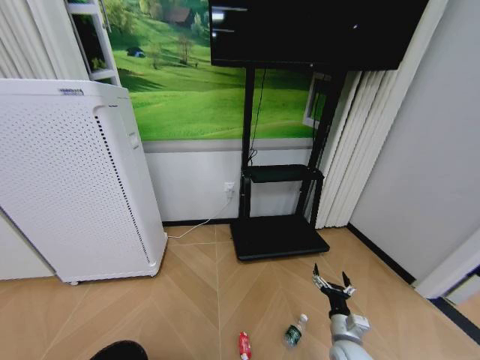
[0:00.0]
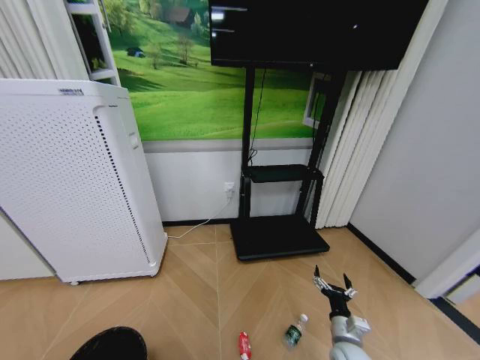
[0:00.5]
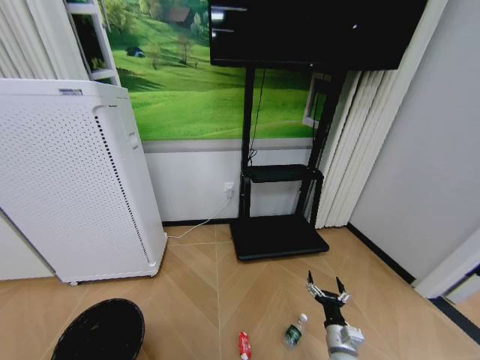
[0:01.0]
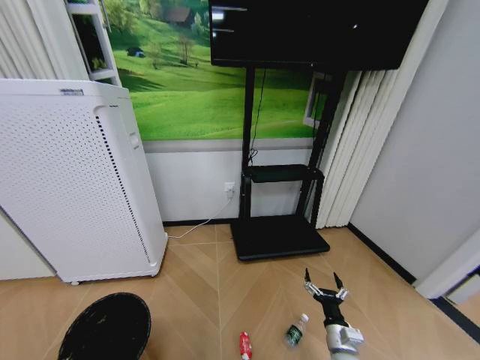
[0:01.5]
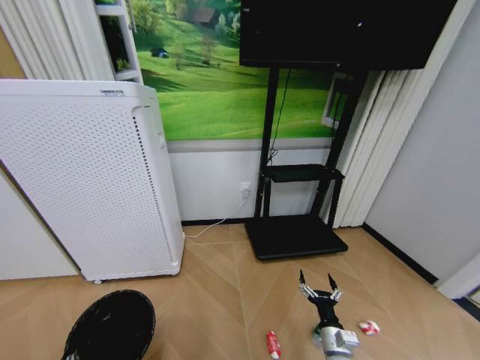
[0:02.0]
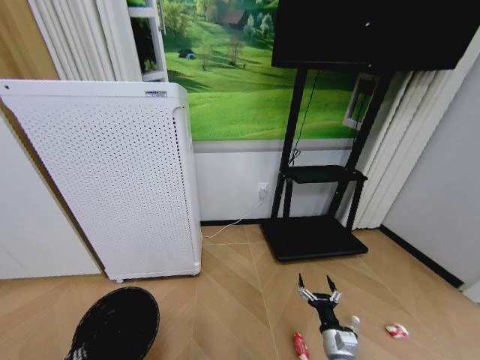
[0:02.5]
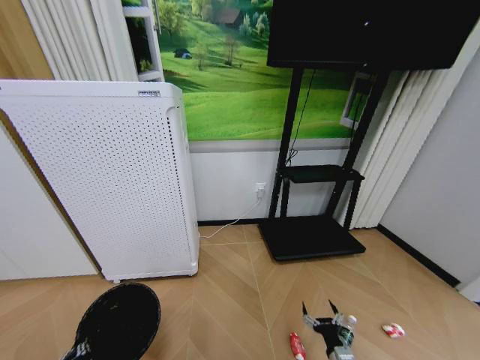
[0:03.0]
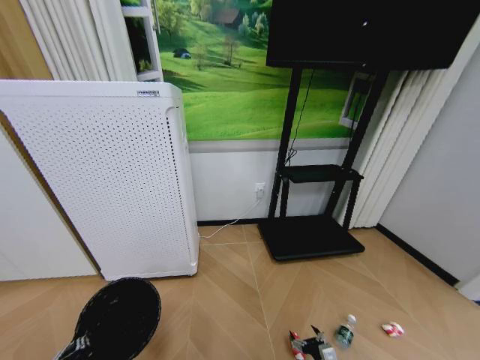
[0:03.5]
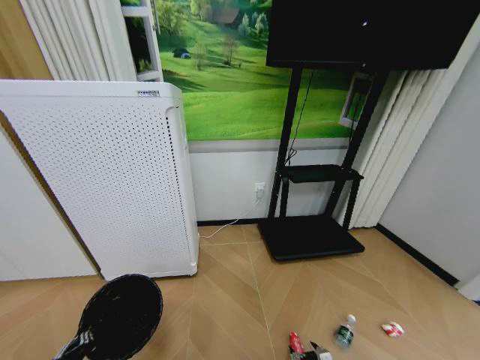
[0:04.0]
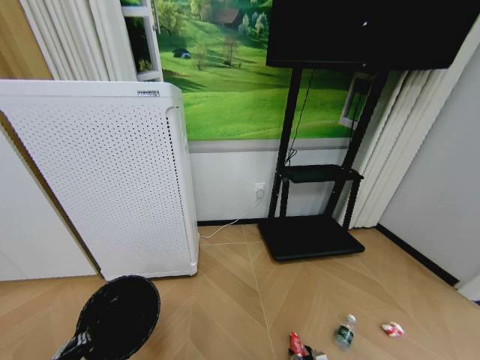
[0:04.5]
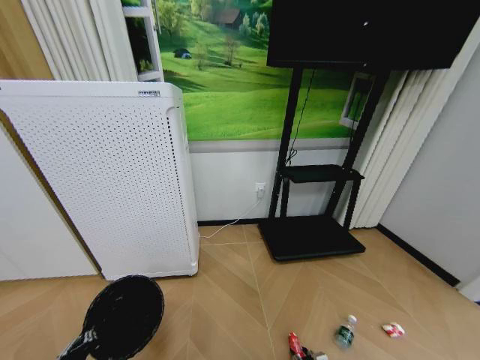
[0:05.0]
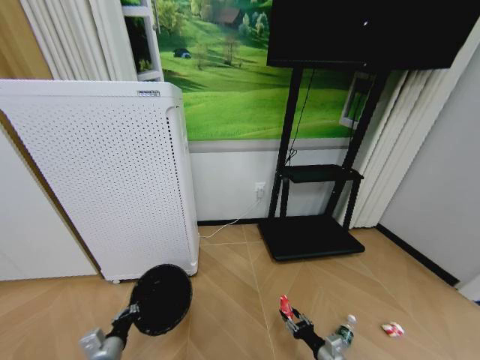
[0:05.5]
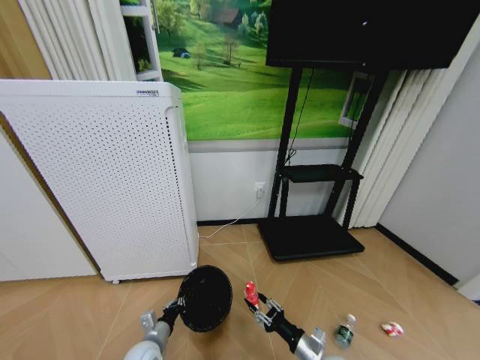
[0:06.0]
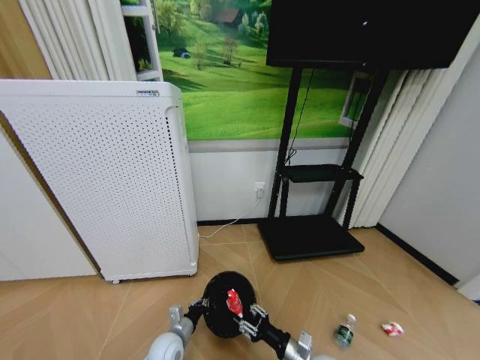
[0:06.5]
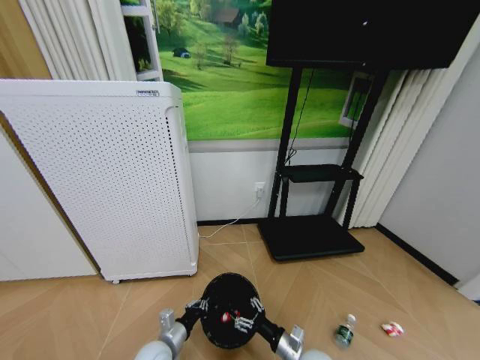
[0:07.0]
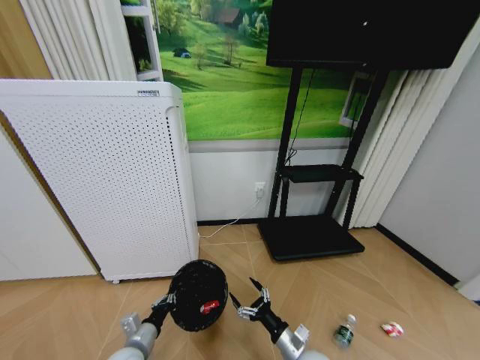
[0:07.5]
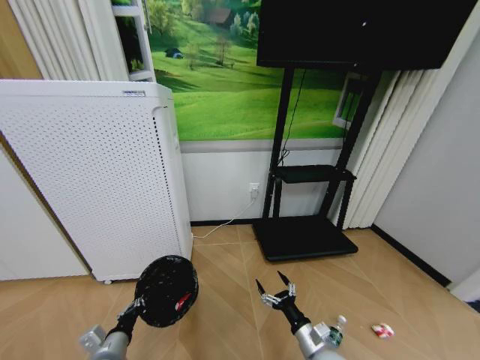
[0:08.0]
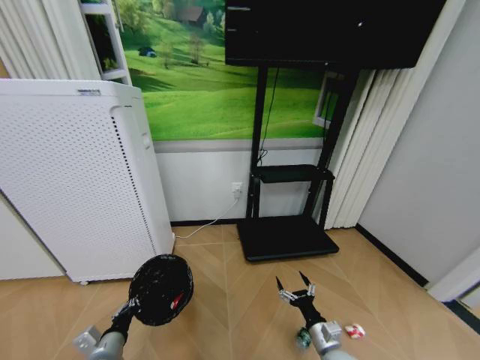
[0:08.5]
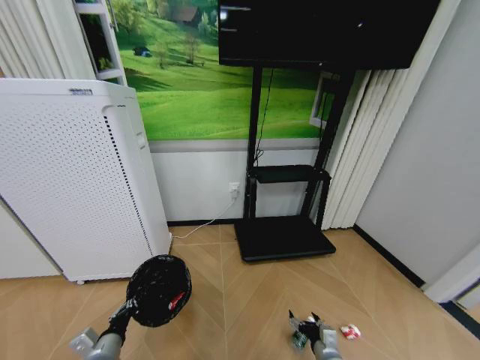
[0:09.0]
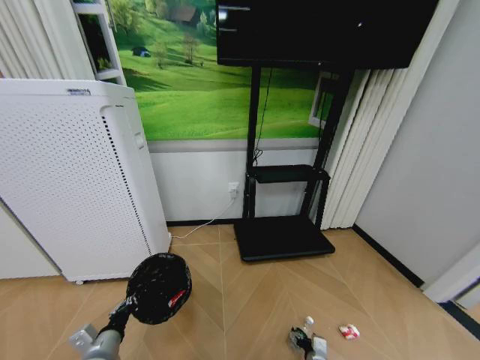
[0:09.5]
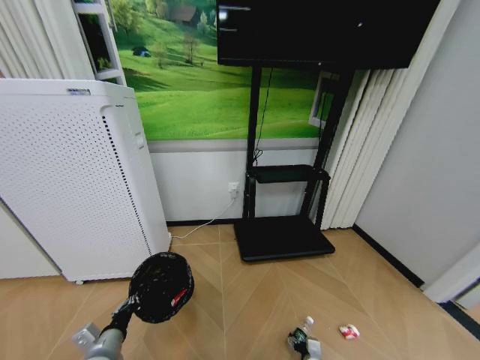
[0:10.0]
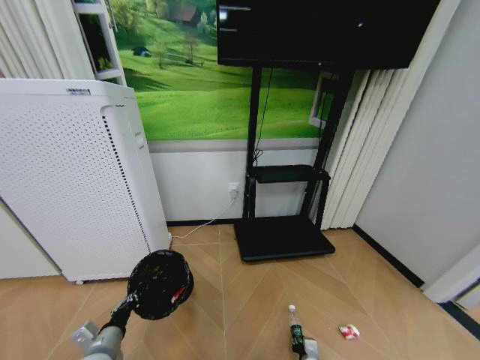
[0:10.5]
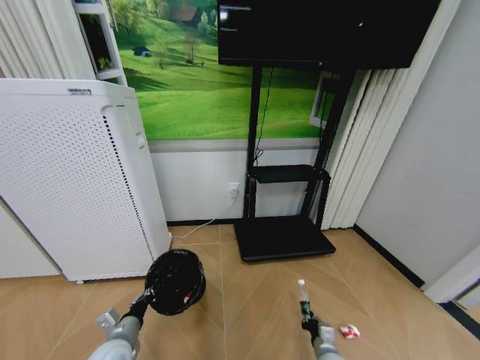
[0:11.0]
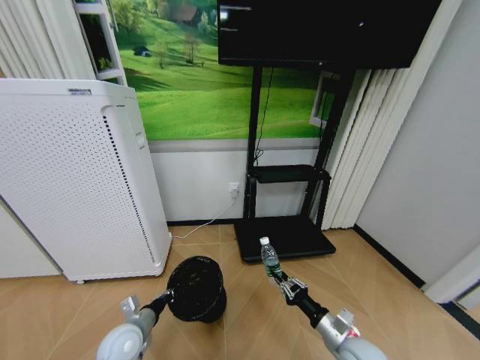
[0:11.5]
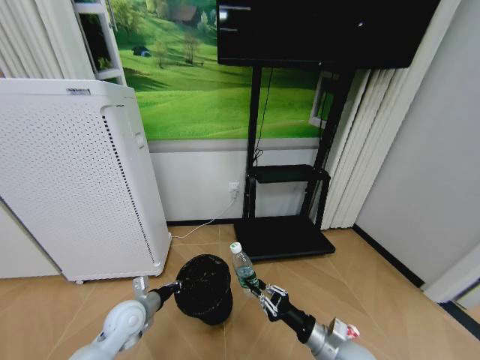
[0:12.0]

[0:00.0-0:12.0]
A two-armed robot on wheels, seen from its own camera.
Task of the whole recording: Pick up the trash bin and place the garbage on the floor into it.
0:00.0 to 0:02.0: The left gripper ends up about 5 cm from where it was.
0:02.0 to 0:04.0: The right gripper heads downward, covering some 15 cm.
0:04.0 to 0:06.0: The left gripper is displaced forward, downward and to the right by about 20 cm, while the right gripper moves upward and to the left, some 15 cm, and closes.
0:06.0 to 0:08.0: The left gripper moves upward, to the left and backward, roughly 10 cm. Meanwhile the right gripper opens its fingers.
0:08.0 to 0:10.0: The right gripper heads downward, covering about 15 cm.
0:10.0 to 0:12.0: The right gripper goes about 25 cm upward, and closes up; the left gripper travels forward by about 10 cm.

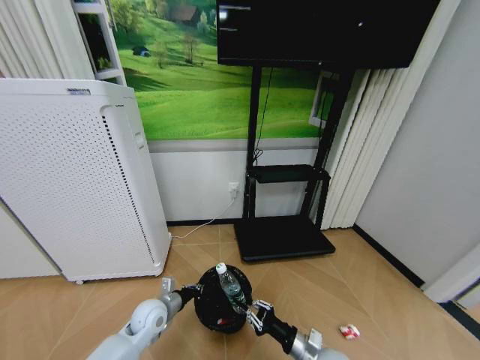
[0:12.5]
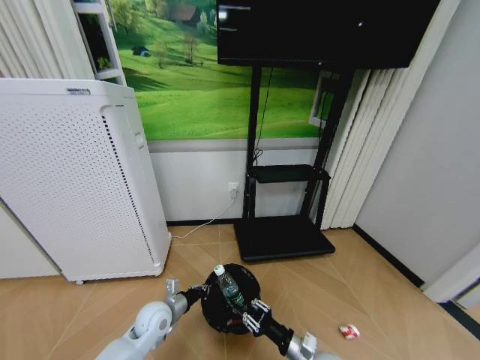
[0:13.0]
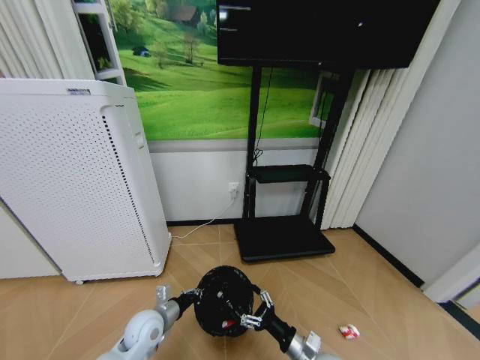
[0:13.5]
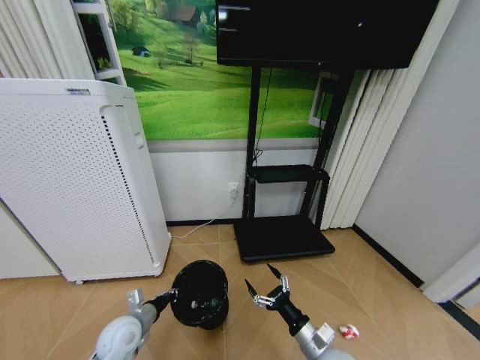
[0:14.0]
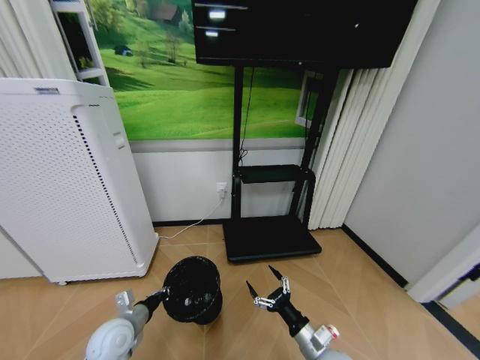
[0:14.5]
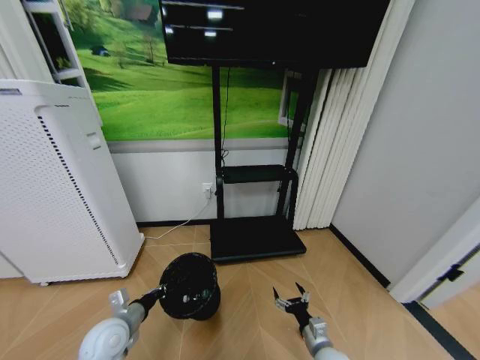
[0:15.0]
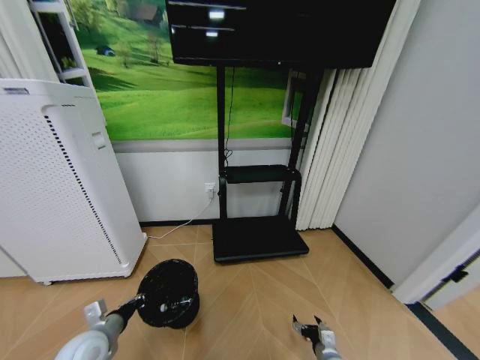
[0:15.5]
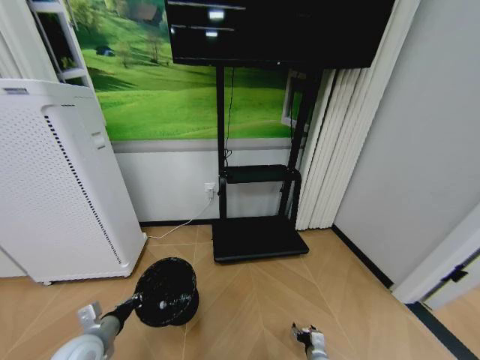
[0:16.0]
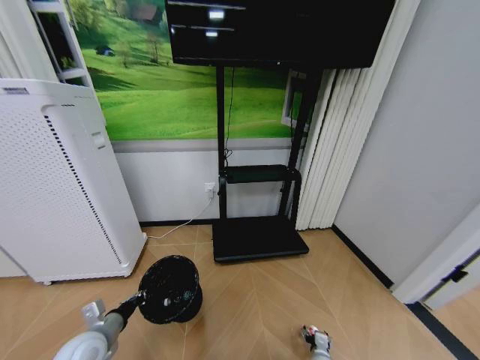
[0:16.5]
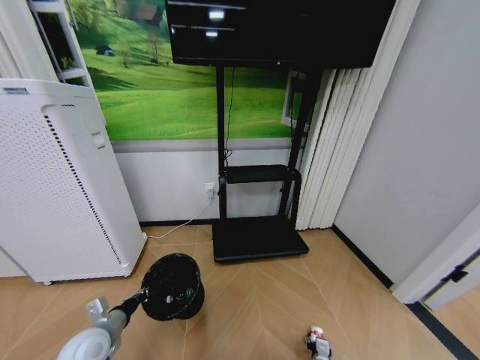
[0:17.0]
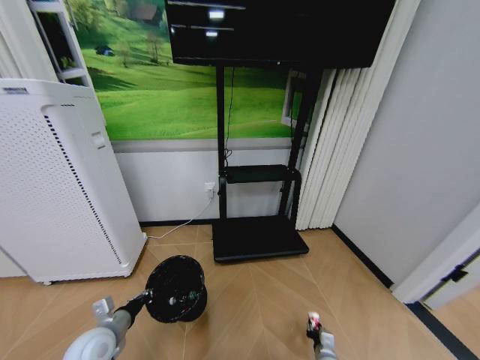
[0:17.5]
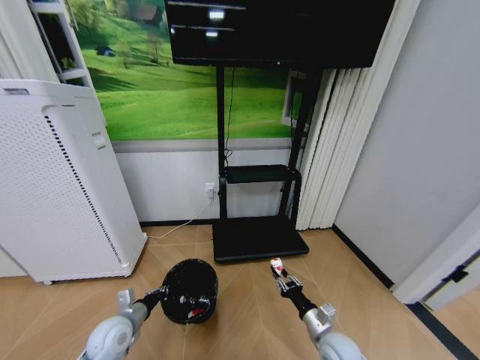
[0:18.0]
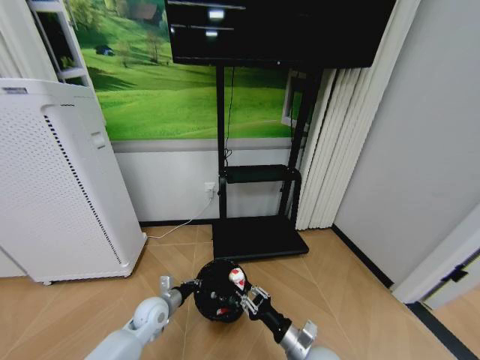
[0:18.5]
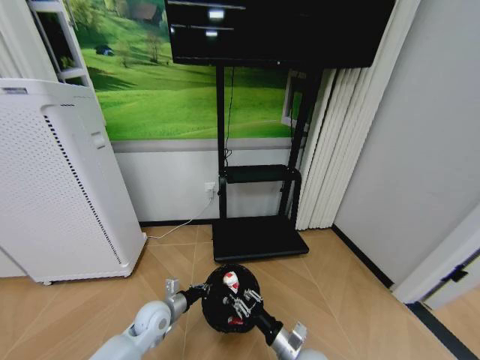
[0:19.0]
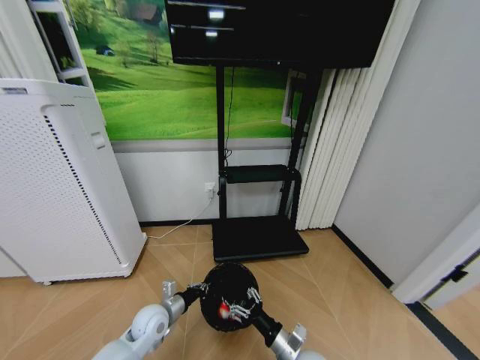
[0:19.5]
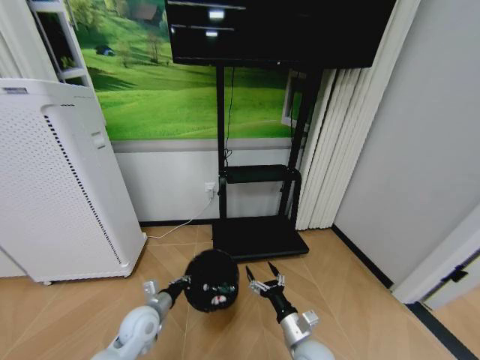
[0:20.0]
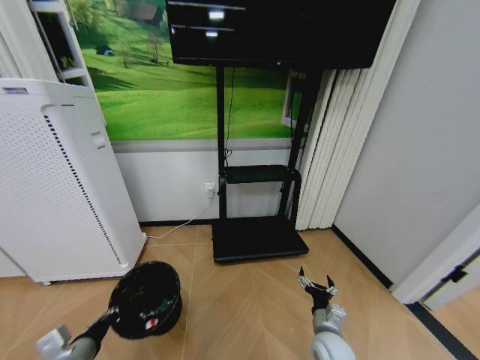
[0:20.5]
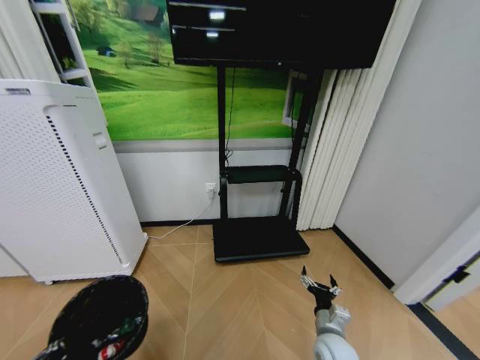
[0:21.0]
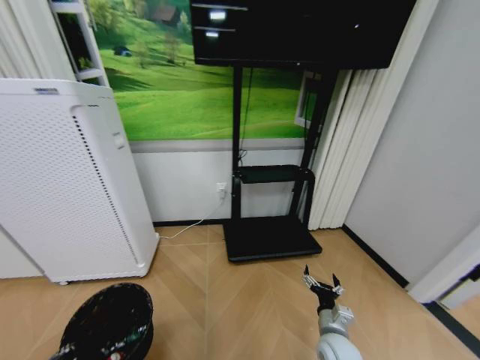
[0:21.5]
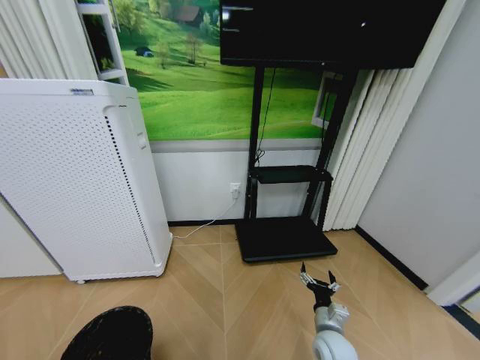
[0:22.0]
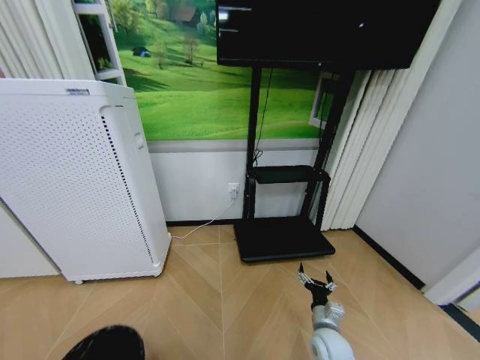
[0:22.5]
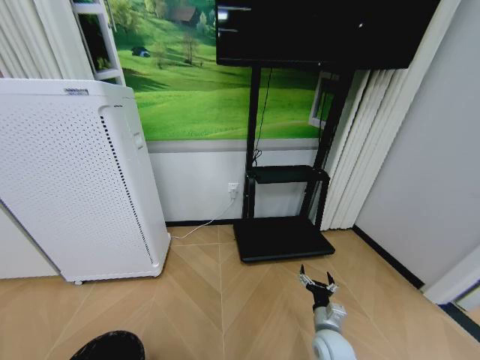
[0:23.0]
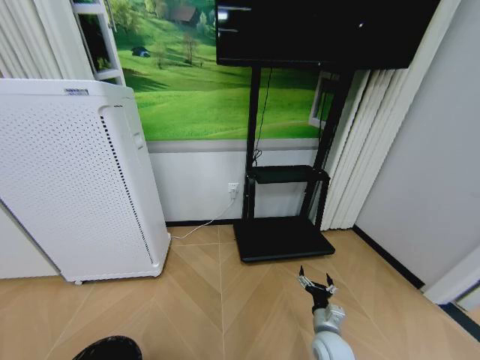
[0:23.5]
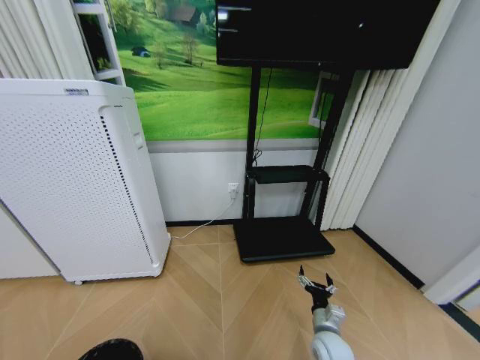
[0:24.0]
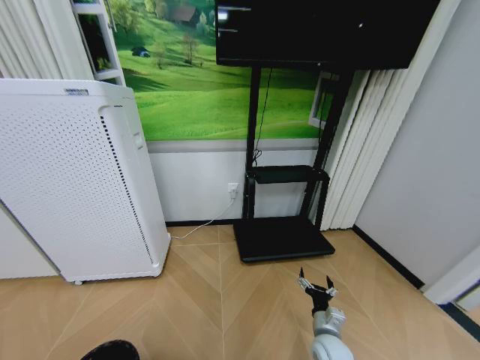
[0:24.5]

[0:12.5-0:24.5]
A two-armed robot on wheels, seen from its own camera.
Task of the whole recording: Pick up the trash bin and place the garbage on the floor into it.
0:12.5 to 0:14.5: The right gripper opens its fingers. Meanwhile the left gripper heads to the left and backward, covering about 10 cm.
0:14.5 to 0:16.5: The left gripper moves roughly 5 cm; the right gripper goes about 20 cm downward.
0:16.5 to 0:18.5: The right gripper heads upward and to the left, covering roughly 25 cm, and closes. Meanwhile the left gripper shifts about 15 cm forward, to the right and downward.
0:18.5 to 0:20.5: The left gripper is displaced backward, to the left and upward by about 20 cm. The right gripper shifts by roughly 5 cm, and opens up.
0:20.5 to 0:22.5: The left gripper is displaced backward by roughly 15 cm.
0:22.5 to 0:24.5: The left gripper heads downward, covering about 5 cm, and opens up.

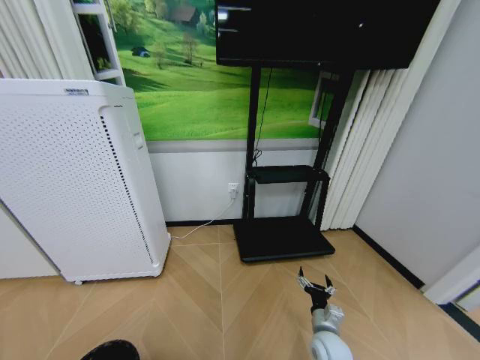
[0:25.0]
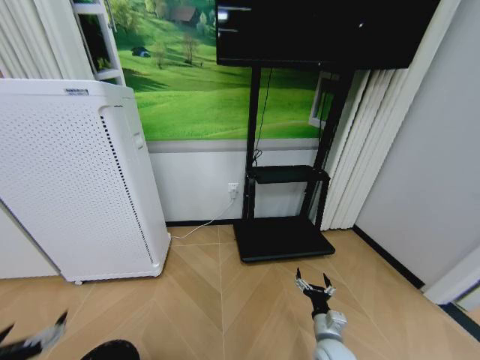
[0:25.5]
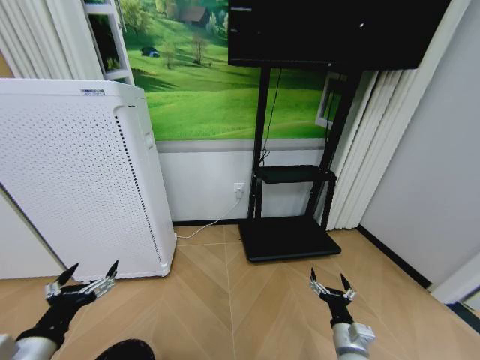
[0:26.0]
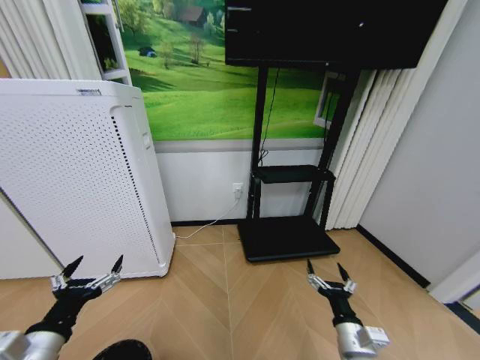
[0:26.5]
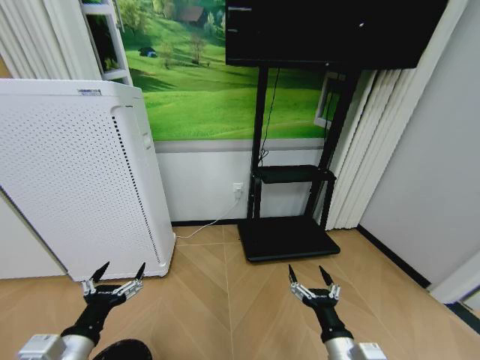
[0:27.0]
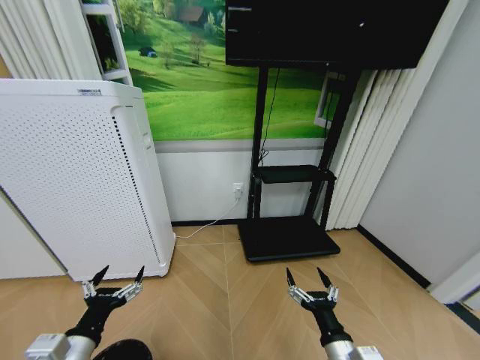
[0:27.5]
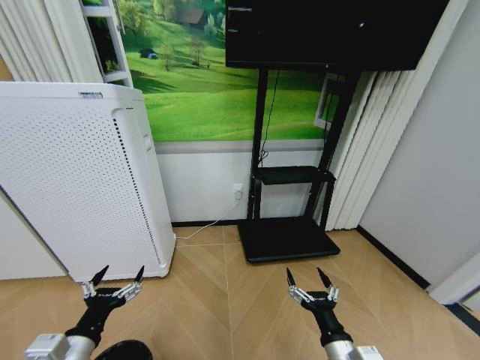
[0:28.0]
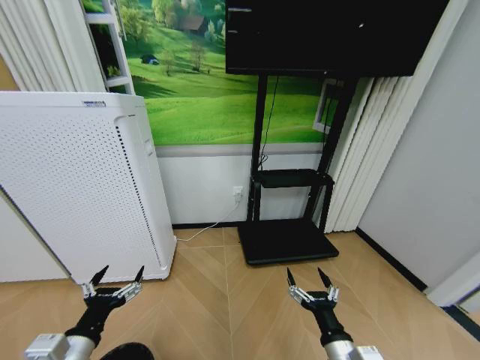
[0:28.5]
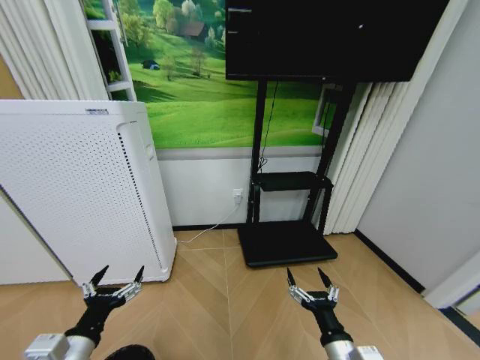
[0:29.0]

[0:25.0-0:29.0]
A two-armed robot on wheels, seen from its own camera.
Task of the whole recording: Pick up the trash bin and place the garbage on the floor into it.
0:25.0 to 0:27.0: The left gripper travels to the right, forward and upward by about 20 cm; the right gripper travels upward and backward by about 20 cm.
0:27.0 to 0:29.0: Both grippers stay put.
